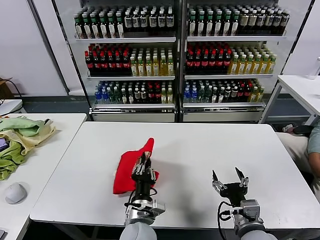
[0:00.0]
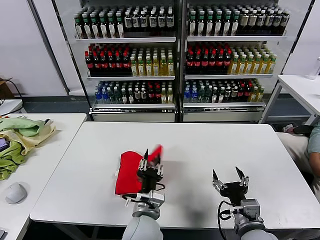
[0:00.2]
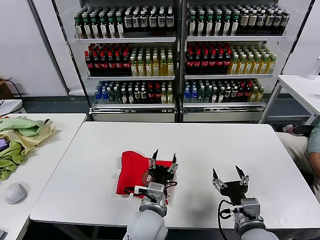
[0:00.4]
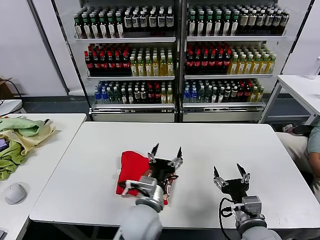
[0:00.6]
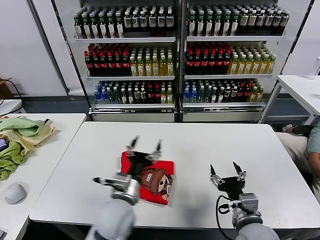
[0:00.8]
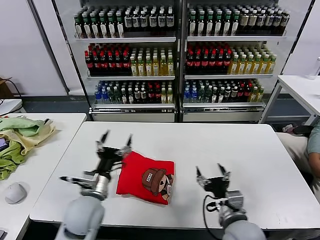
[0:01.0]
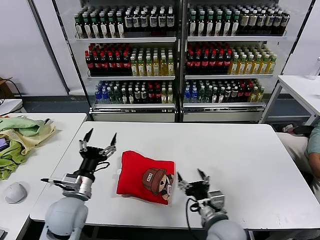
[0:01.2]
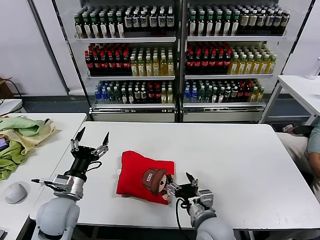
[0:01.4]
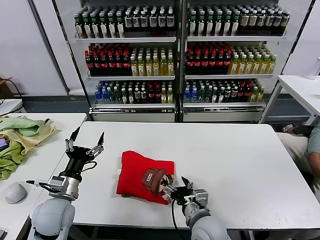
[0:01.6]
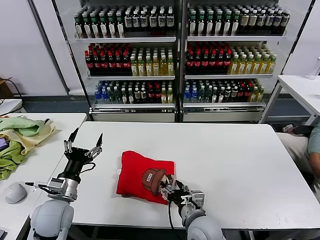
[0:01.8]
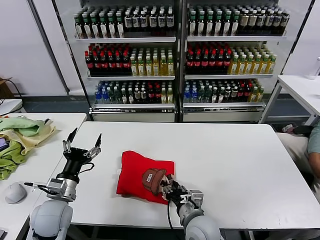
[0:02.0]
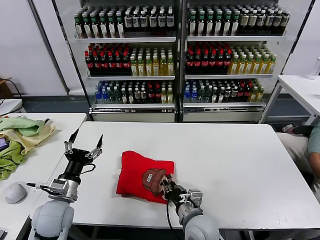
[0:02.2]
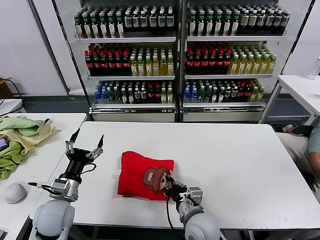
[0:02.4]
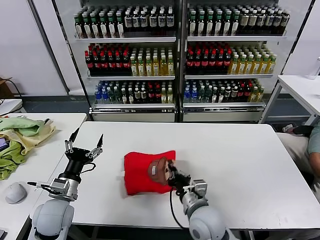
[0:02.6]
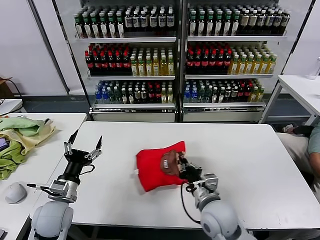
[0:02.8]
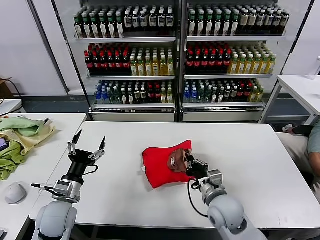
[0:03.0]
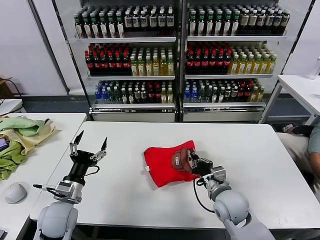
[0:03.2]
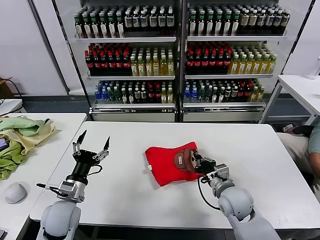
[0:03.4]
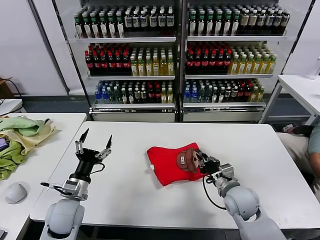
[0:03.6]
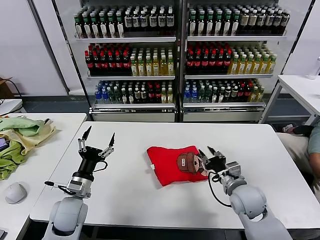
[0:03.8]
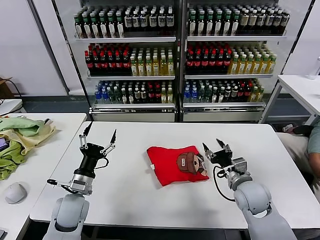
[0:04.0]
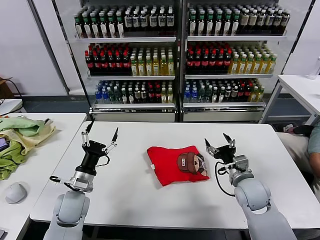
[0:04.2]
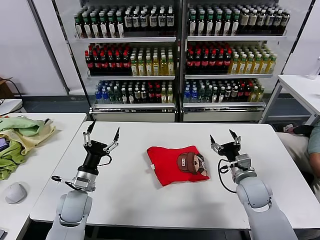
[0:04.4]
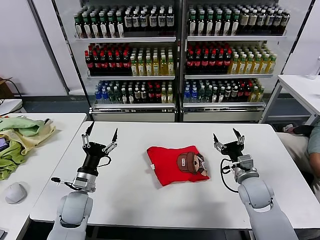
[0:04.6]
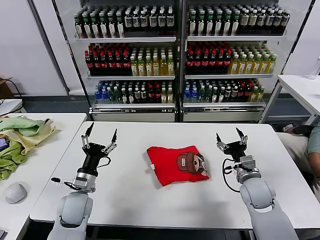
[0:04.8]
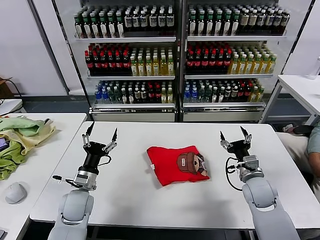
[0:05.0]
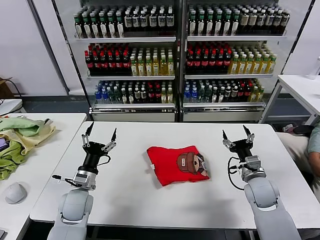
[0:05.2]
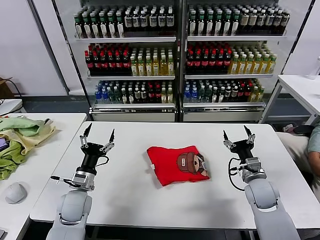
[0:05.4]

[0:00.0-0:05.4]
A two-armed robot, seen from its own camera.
Task of the whole recording: fold and organize the clothes.
Step, 0:00.4 to 0:03.8: Drag the clothes to the center of the table.
0:00.0 to 0:01.4: The right gripper heads to the left, covering some 10 cm; the left gripper goes about 20 cm to the left, and opens.
0:01.4 to 0:02.8: The right gripper closes.
0:02.8 to 0:04.0: The right gripper shifts approximately 15 cm to the right and forward, and opens its fingers.
0:04.0 to 0:05.4: The right gripper is displaced to the right by approximately 5 cm.

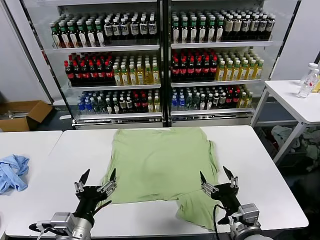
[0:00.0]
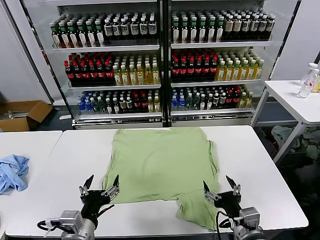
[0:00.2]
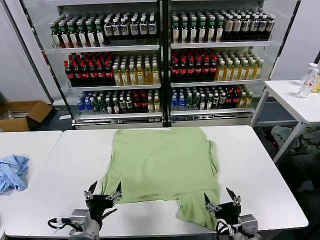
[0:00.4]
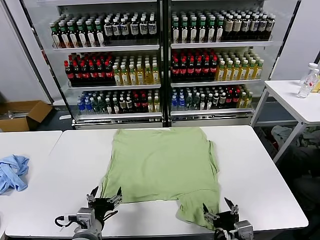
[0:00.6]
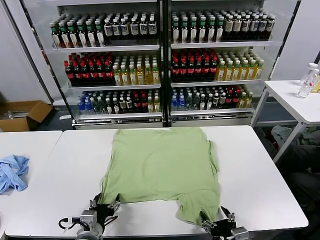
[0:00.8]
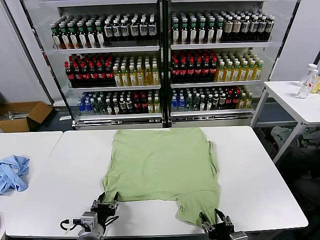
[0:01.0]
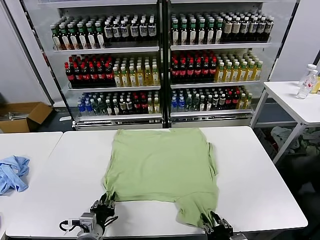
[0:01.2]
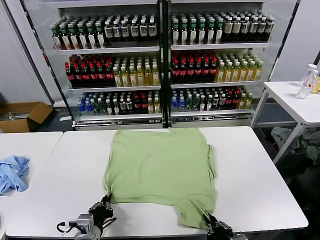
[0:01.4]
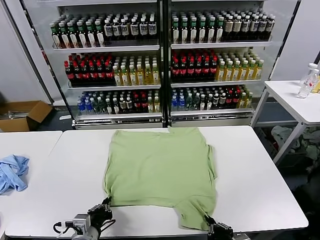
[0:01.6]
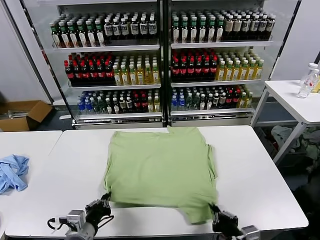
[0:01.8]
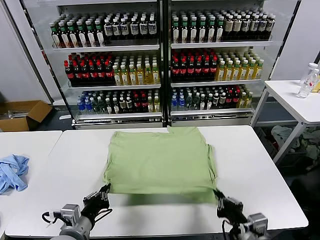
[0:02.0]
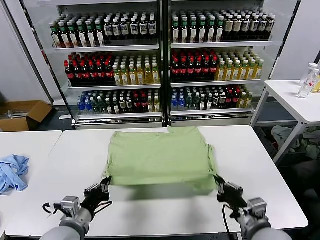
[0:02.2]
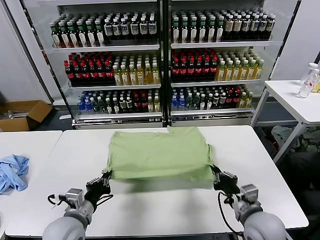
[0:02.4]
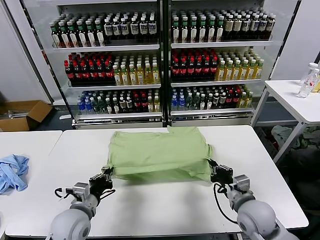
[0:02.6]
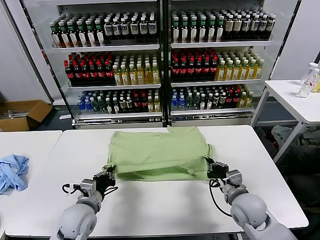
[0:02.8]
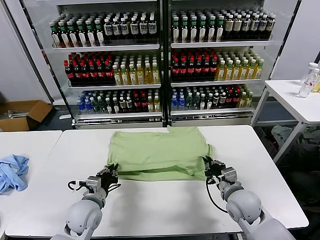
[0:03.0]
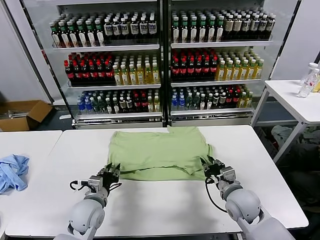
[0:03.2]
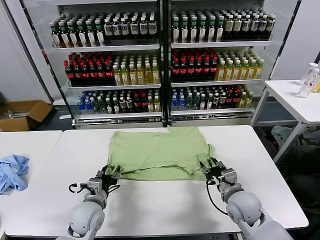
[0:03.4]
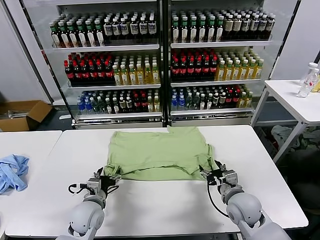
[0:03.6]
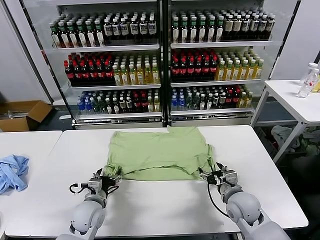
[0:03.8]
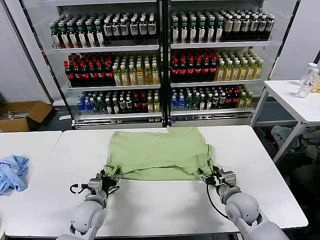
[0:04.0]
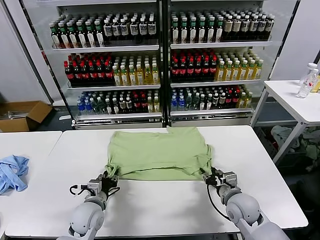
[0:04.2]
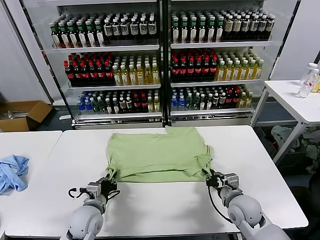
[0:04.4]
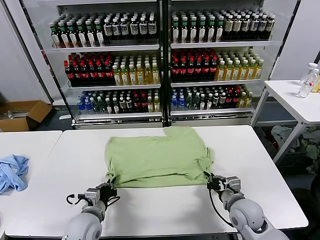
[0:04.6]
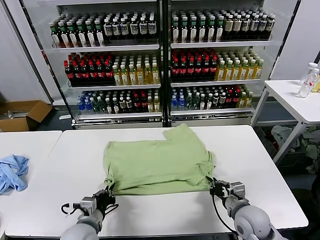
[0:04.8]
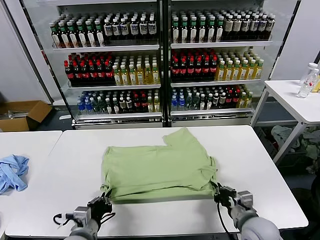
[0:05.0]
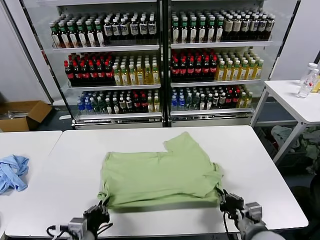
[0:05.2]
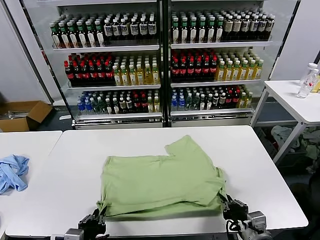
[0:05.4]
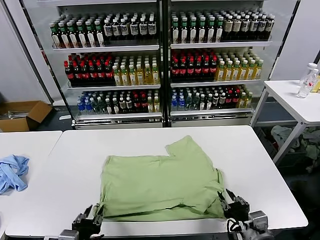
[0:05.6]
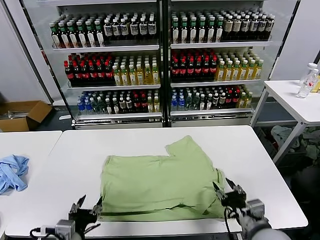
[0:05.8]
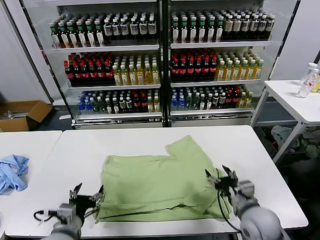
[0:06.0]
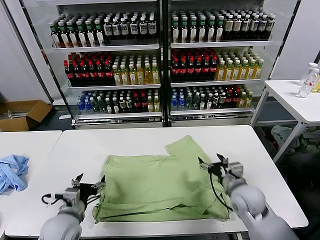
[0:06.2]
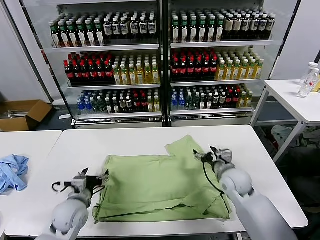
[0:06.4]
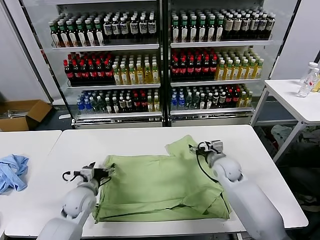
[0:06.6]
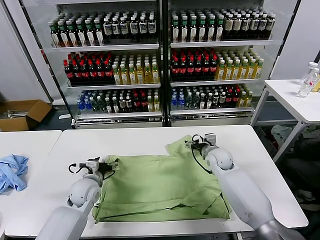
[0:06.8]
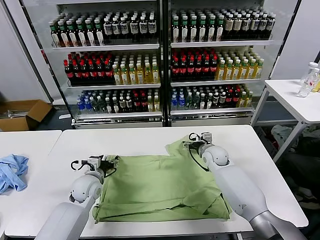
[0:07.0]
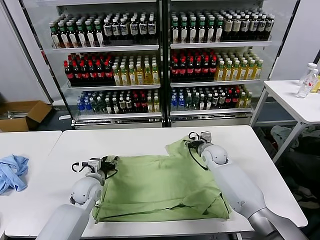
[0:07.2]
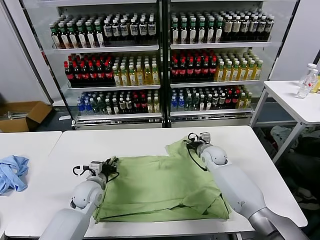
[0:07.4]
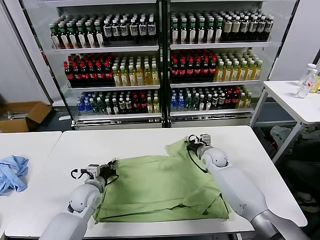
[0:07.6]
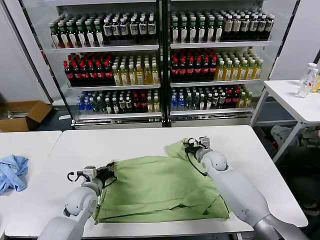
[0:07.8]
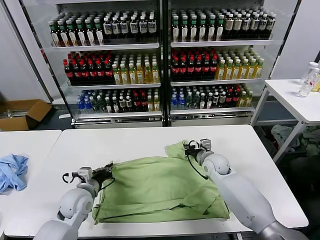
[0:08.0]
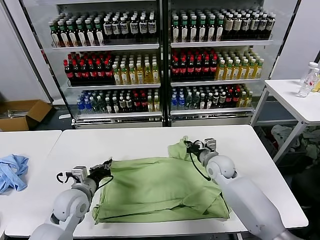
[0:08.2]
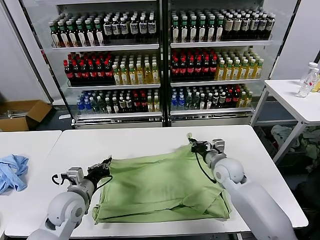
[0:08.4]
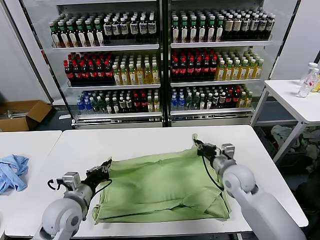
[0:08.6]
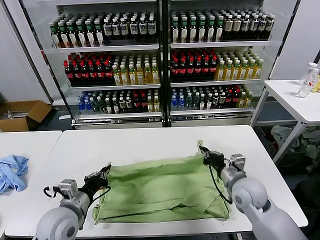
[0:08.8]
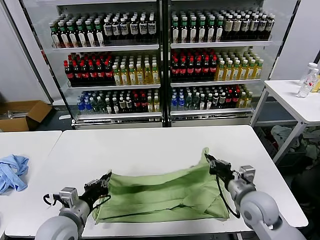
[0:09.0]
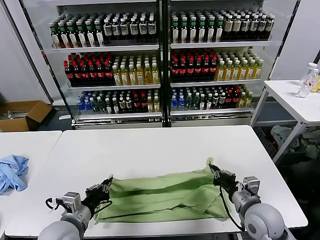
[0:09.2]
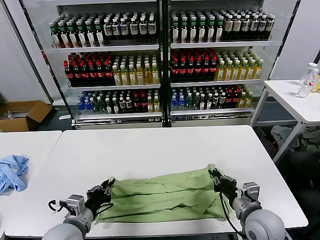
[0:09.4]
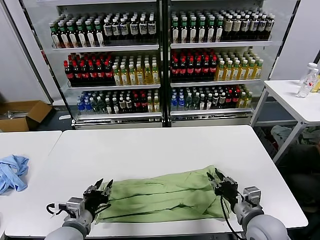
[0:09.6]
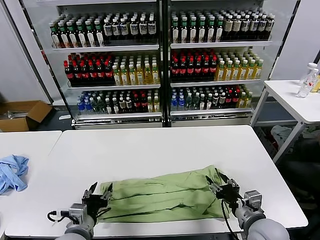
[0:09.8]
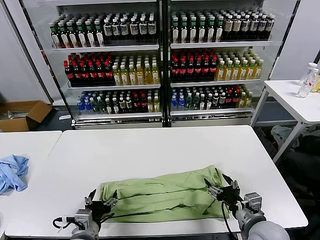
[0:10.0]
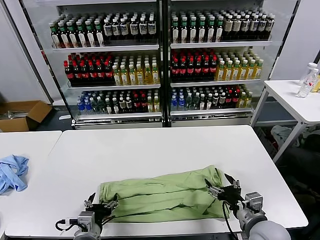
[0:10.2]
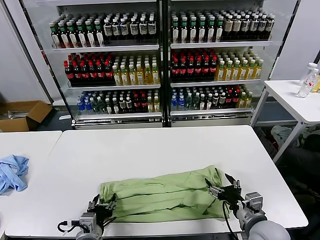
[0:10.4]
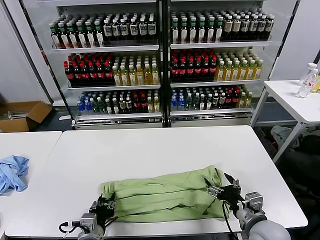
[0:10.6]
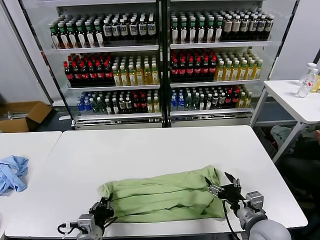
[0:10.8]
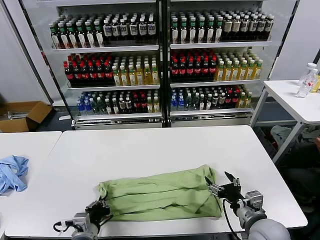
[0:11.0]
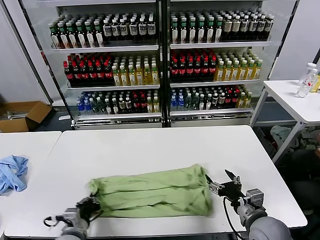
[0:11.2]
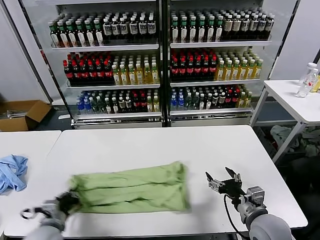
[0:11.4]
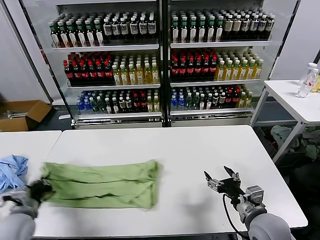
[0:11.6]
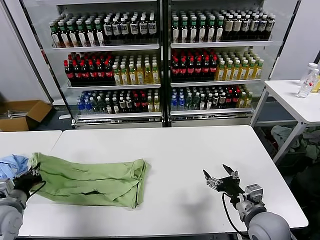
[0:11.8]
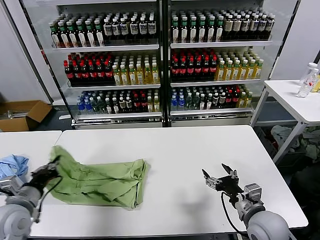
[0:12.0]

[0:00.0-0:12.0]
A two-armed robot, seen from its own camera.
Task of the whole recording: fold and organize the clothes.
Step, 0:00.0 to 0:01.4: use both grippers simultaneously to clamp the lower edge of the clothing fabric.
Step, 0:01.8 to 0:03.2: use both grippers to drag the lower edge of the fabric forward and fold it over the upper edge.
Step, 0:03.4 to 0:05.8: Drag the clothes downward with both gripper.
Step, 0:06.0 to 0:07.6: use both grippers simultaneously to clamp the upper edge of the clothing fabric.
Step, 0:08.0 to 0:09.6: use both grippers to drag the upper edge of the fabric backward and fold it over the lower edge.
Step, 0:09.8 to 0:10.8: use the left gripper to clamp the left edge of the fabric.
0:01.6 to 0:03.0: The left gripper heads forward, covering roughly 10 cm. The right gripper shifts some 20 cm forward.
0:03.0 to 0:04.4: The left gripper opens and closes again; the right gripper opens, then closes again.
0:04.4 to 0:06.0: The right gripper goes backward and returns, about 15 cm each way, and opens. Meanwhile the left gripper moves backward and upward, approximately 10 cm, and opens its fingers.
0:06.0 to 0:07.6: The grippers both shift forward by some 20 cm. The right gripper closes, while the left gripper closes its fingers.
0:07.6 to 0:09.0: The right gripper heads backward, covering some 25 cm; the left gripper moves backward and upward, some 15 cm.
0:09.0 to 0:10.4: The left gripper heads downward and to the right, covering about 10 cm, and opens its fingers. Meanwhile the right gripper heads backward, covering some 5 cm, and opens up.
0:10.4 to 0:12.0: The left gripper goes about 20 cm to the left and upward, and closes up.

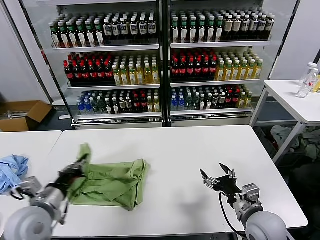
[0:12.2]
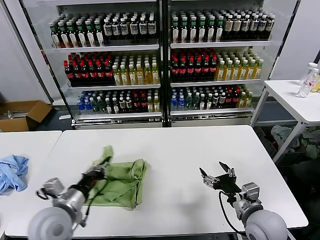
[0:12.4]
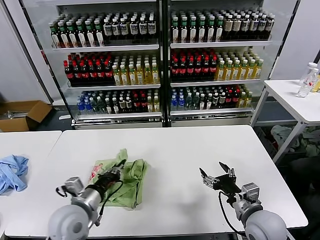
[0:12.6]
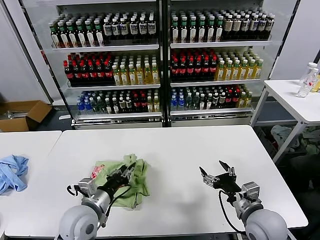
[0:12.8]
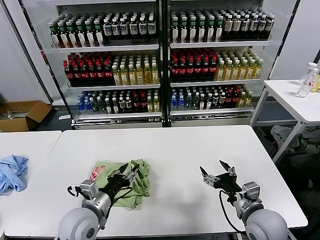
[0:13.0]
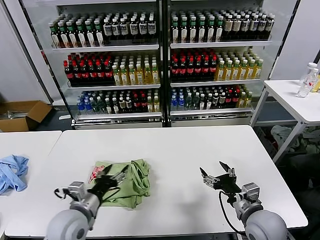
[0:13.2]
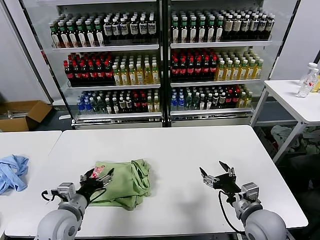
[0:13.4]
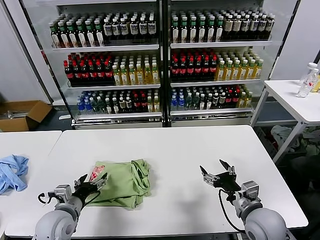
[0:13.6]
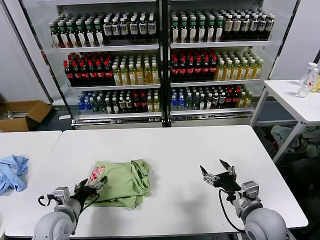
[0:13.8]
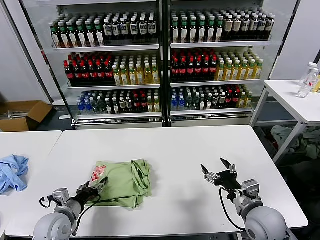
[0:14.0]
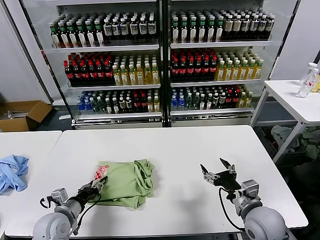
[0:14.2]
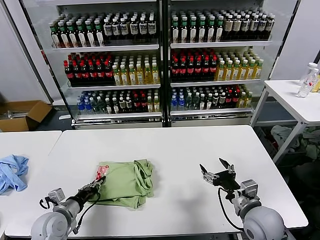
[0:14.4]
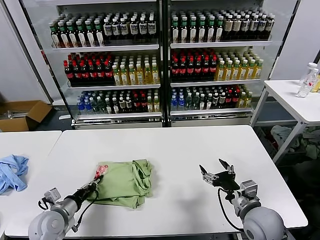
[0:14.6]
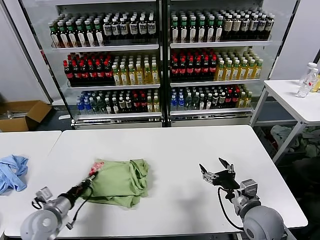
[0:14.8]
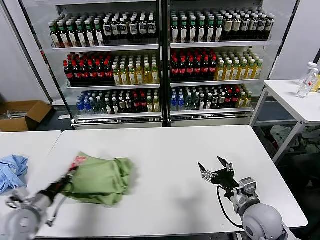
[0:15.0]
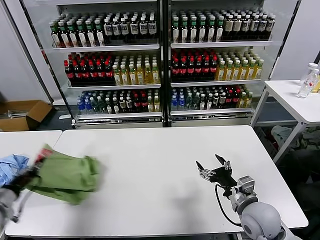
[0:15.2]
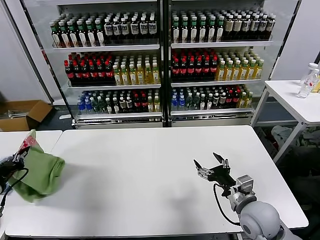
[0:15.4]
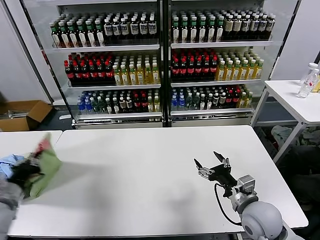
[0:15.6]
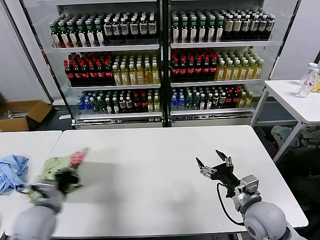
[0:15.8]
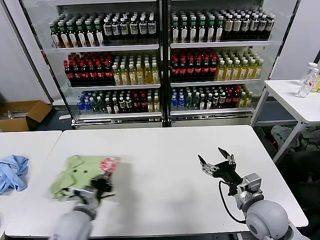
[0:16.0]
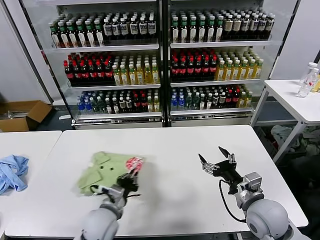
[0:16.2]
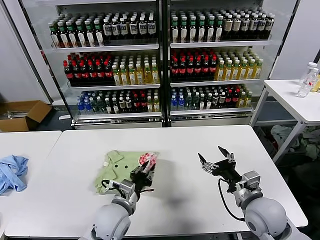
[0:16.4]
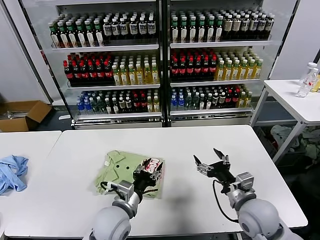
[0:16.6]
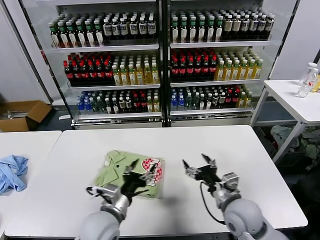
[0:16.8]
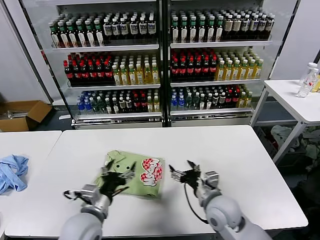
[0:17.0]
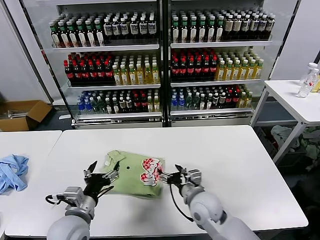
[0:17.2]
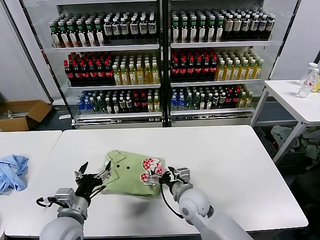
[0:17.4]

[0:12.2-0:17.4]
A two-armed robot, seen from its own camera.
Task of the whole recording: fold and organize the clothes.
Step, 0:13.2 to 0:16.4: Flip the folded clothes over with left gripper.
0:12.2 to 0:14.0: The left gripper shifts some 10 cm downward, travels to the right and back again, approximately 10 cm each way, and opens.
0:14.0 to 0:15.6: The left gripper goes roughly 15 cm upward and to the left, and closes.
0:15.6 to 0:17.4: The left gripper goes some 20 cm to the right, and opens; the right gripper goes roughly 20 cm to the left and forward.
